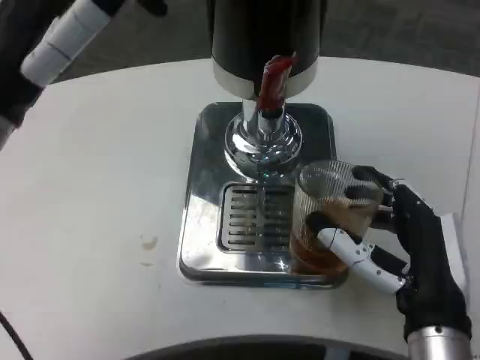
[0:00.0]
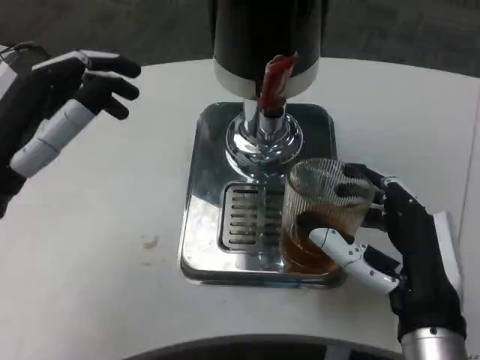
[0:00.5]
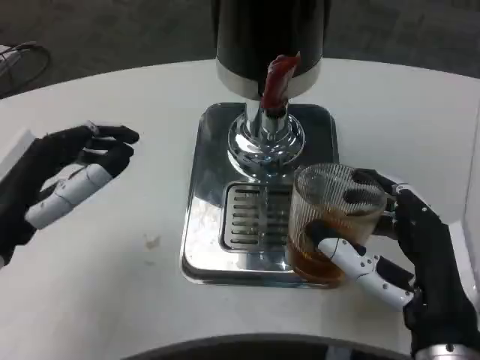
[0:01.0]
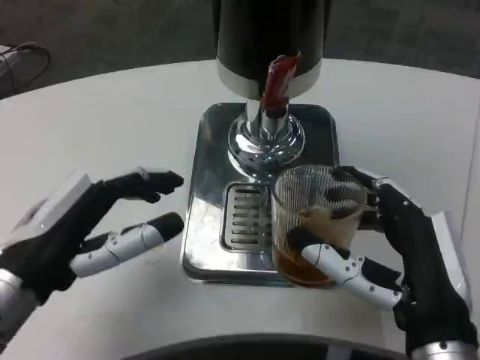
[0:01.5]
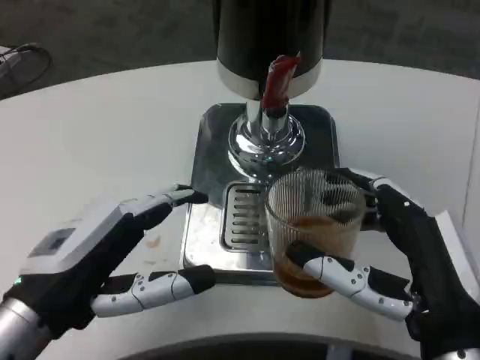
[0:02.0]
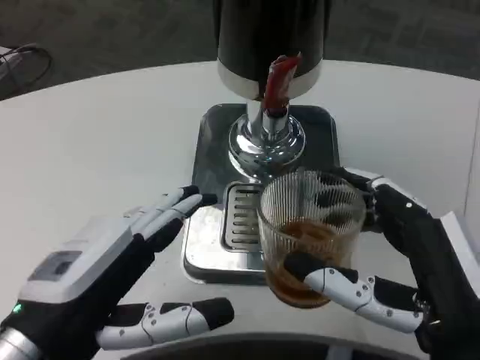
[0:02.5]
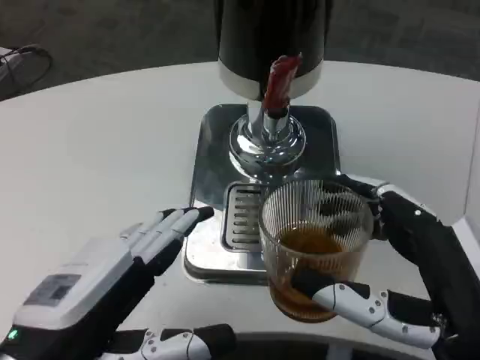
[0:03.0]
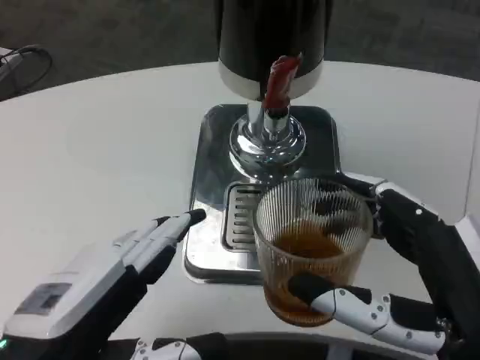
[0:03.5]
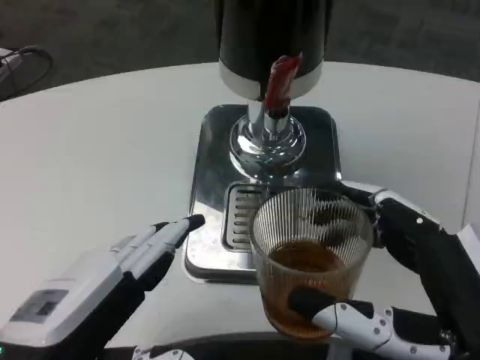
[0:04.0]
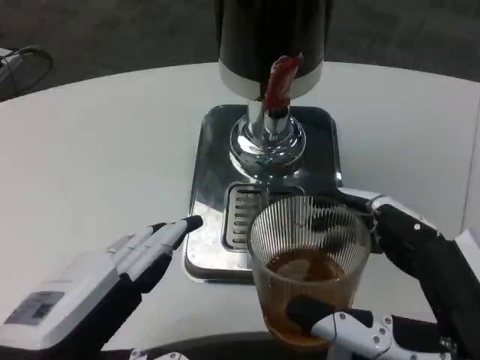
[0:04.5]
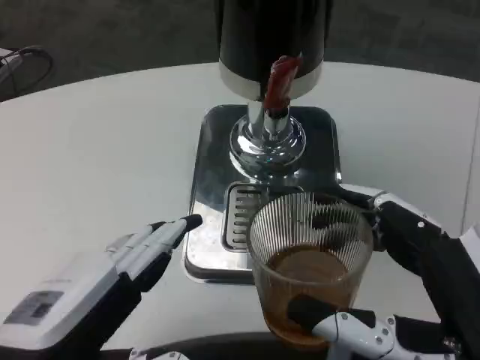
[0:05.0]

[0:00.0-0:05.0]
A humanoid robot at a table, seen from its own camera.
Task of the whole recording: Grasp the cup under the faucet to collect the drink, then remove the cup.
0:00.0 to 0:02.5: The right hand travels backward by roughly 5 cm, while the left hand travels downward and backward by some 15 cm.

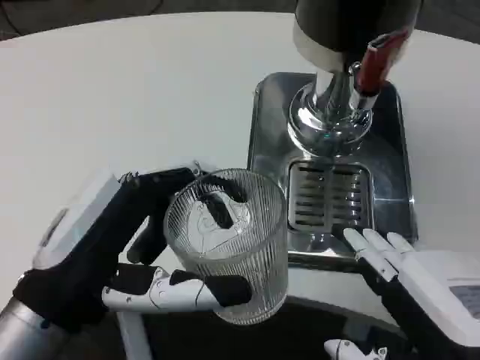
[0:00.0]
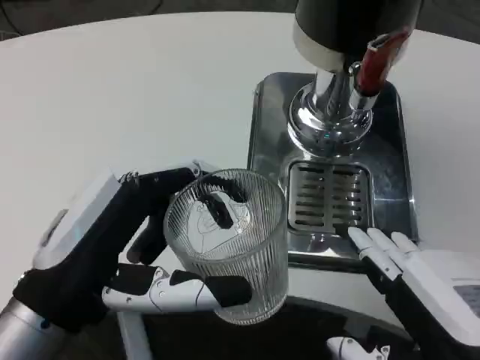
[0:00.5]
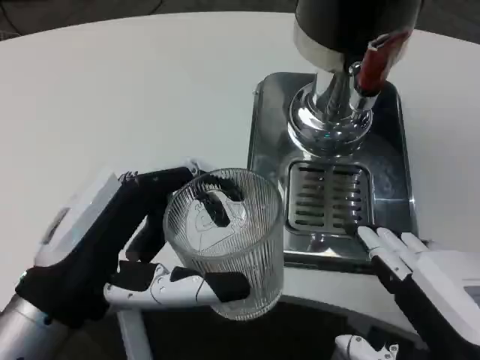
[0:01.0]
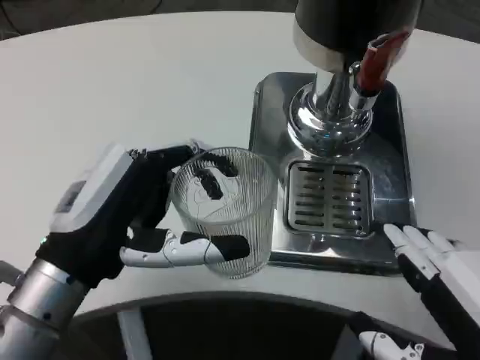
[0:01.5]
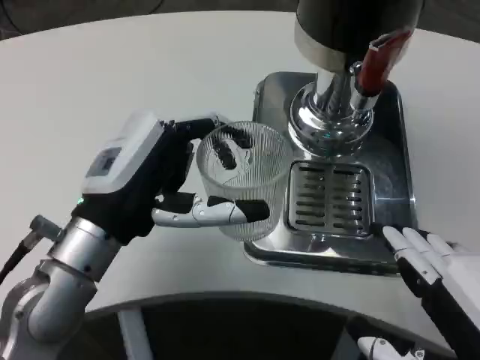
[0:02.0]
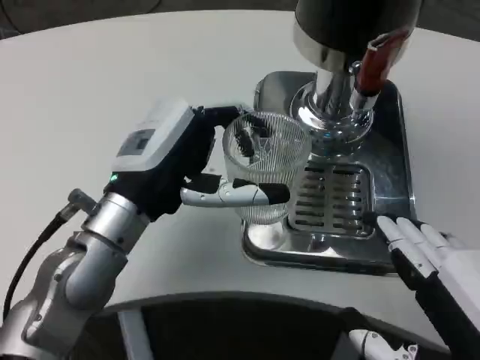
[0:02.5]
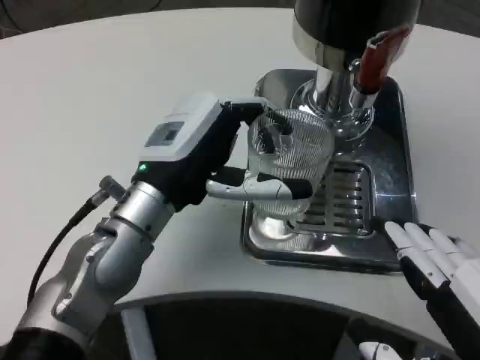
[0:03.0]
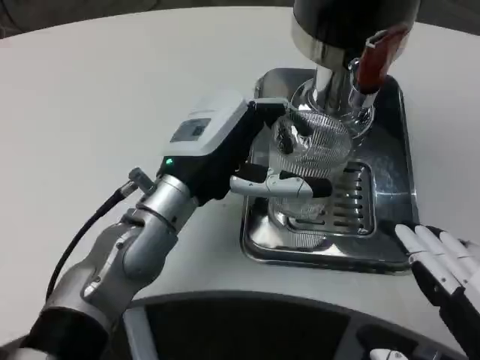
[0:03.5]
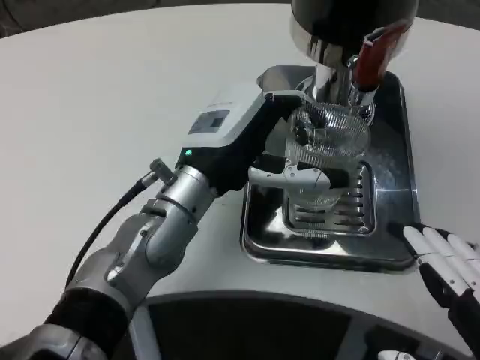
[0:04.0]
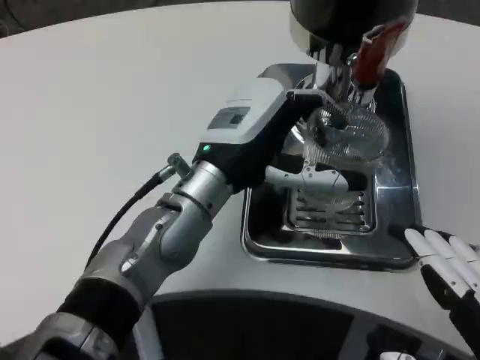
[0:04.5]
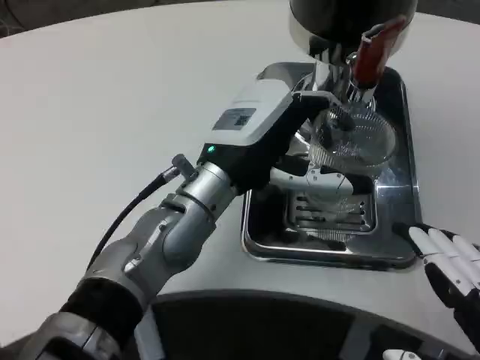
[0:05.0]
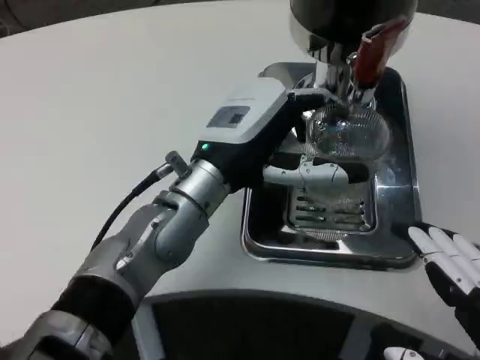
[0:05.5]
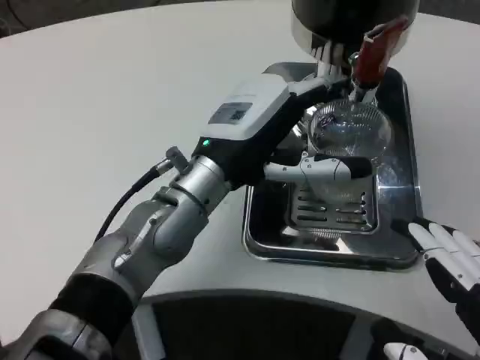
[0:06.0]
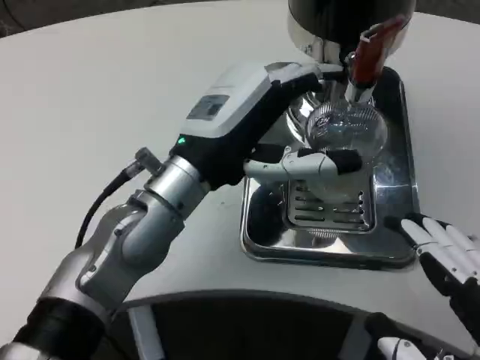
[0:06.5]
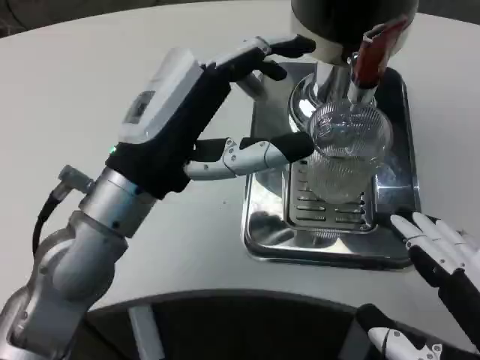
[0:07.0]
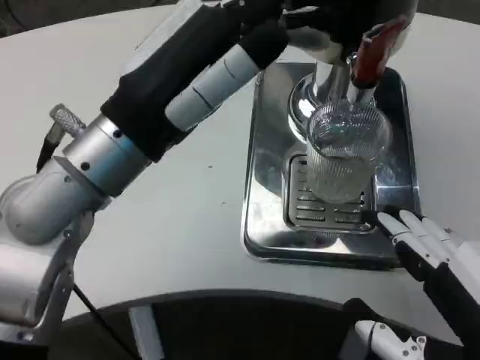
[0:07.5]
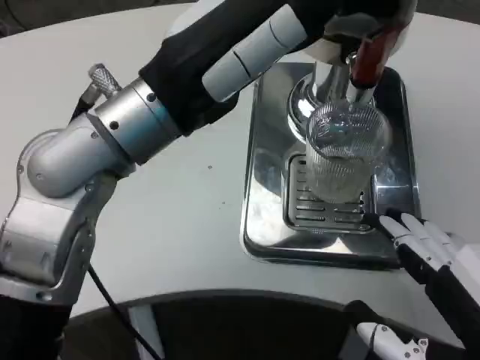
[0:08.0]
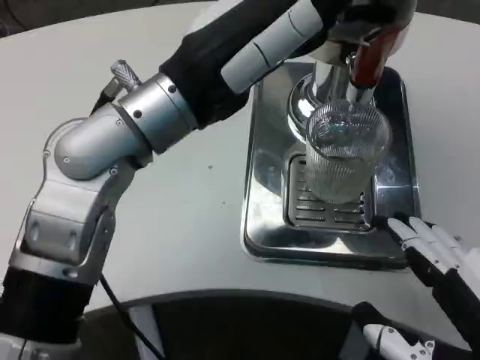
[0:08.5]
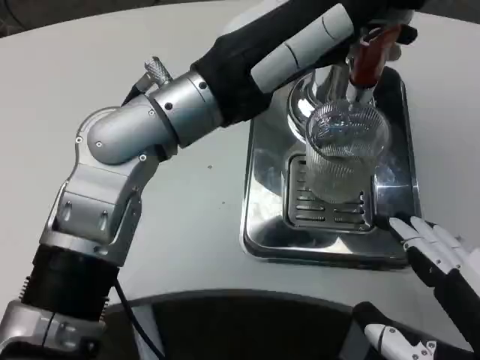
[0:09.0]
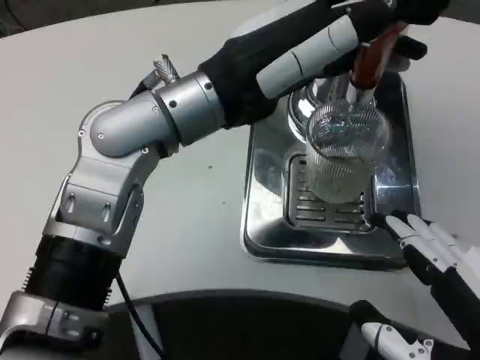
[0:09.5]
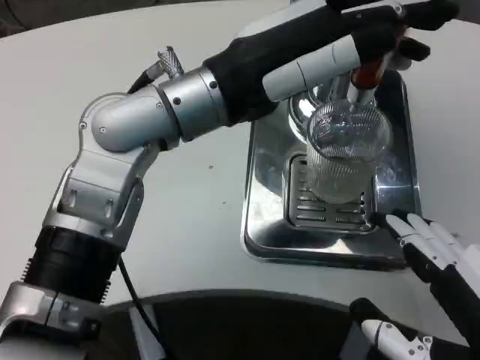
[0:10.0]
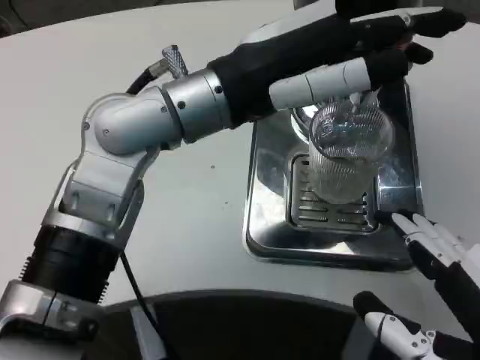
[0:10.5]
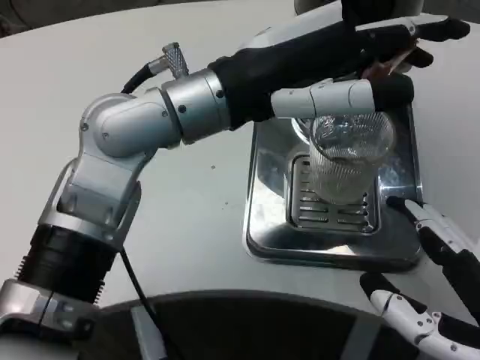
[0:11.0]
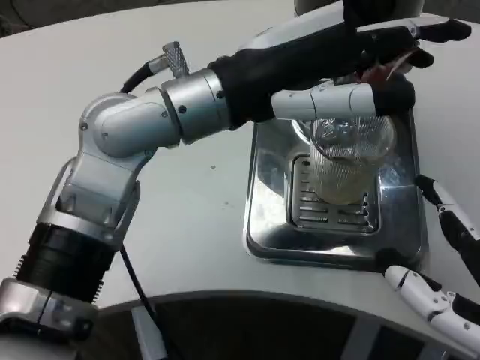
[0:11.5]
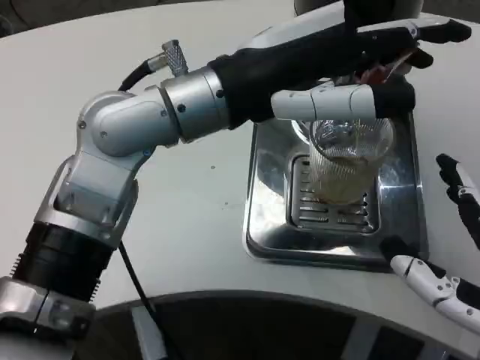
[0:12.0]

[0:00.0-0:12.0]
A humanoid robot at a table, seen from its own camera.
Task of the whole recording: Grasp the cup under the faucet to collect the drink, then remove the cup.
0:00.0 to 0:02.0: The left hand travels forward by about 10 cm.
0:02.0 to 0:04.0: The left hand is displaced to the right and forward by approximately 10 cm.
0:06.0 to 0:08.0: The left hand moves upward and backward, approximately 10 cm.
0:08.0 to 0:10.0: The left hand changes place by approximately 5 cm.

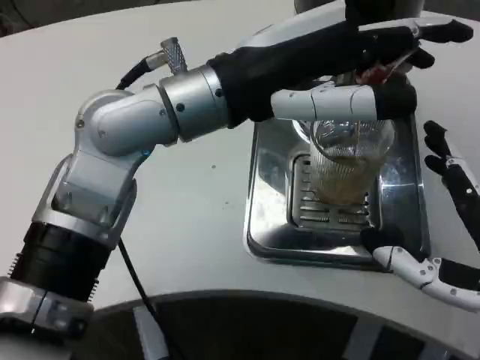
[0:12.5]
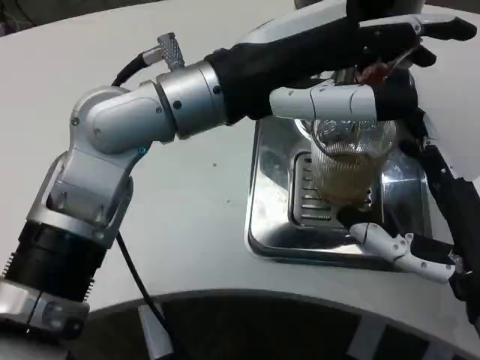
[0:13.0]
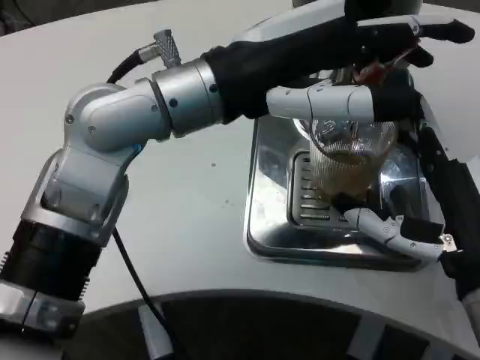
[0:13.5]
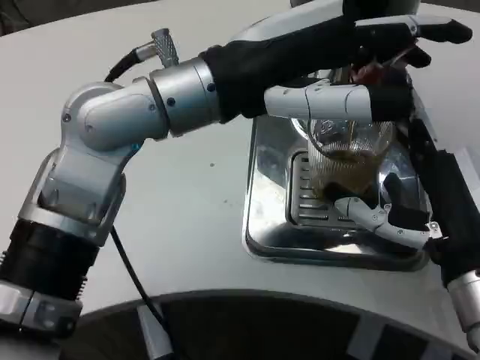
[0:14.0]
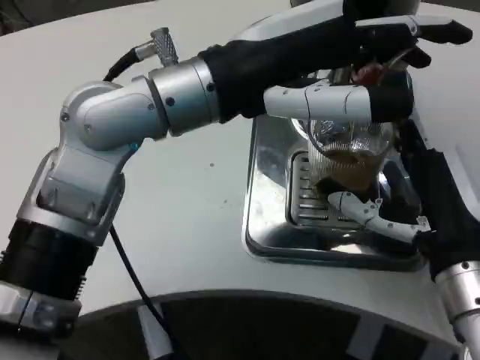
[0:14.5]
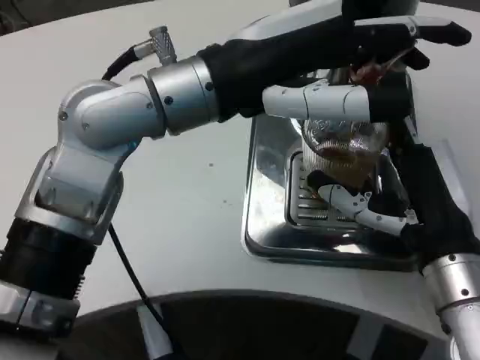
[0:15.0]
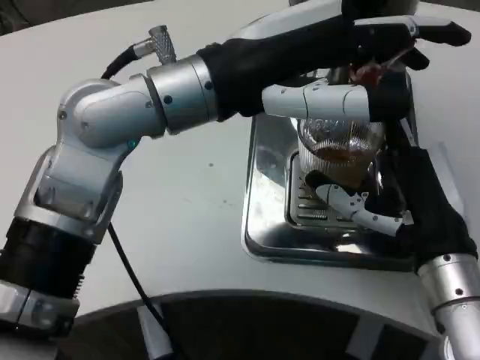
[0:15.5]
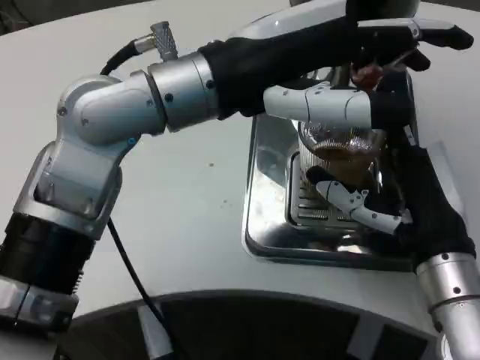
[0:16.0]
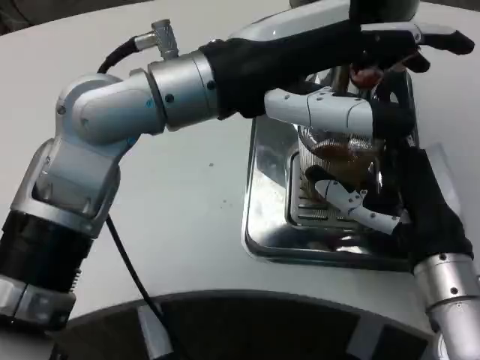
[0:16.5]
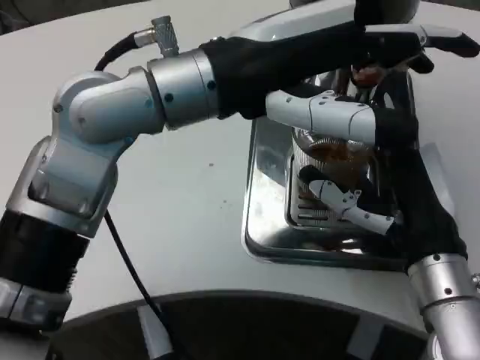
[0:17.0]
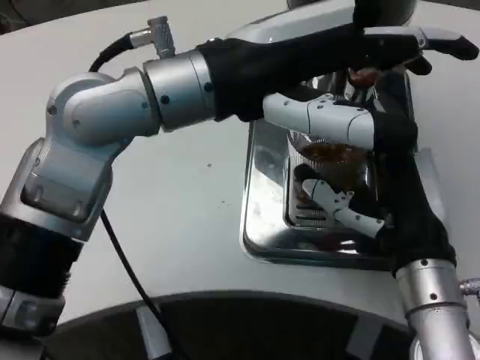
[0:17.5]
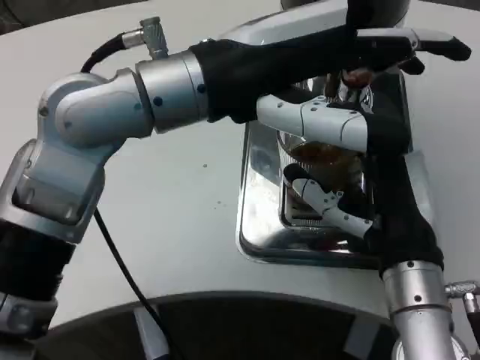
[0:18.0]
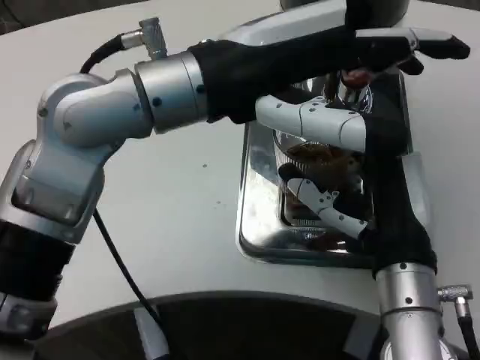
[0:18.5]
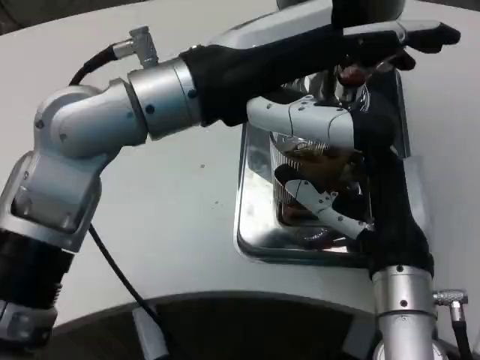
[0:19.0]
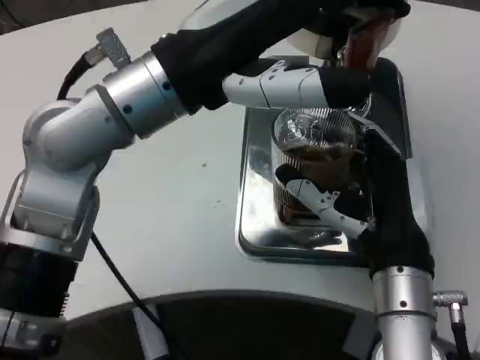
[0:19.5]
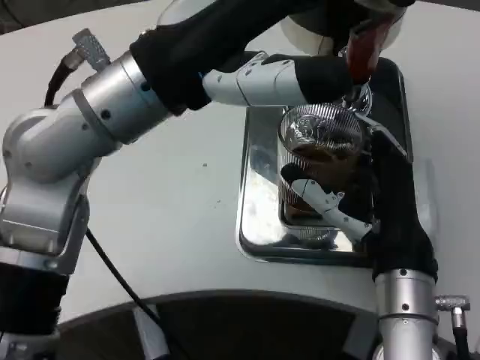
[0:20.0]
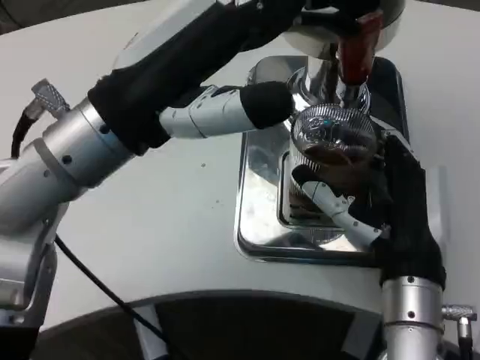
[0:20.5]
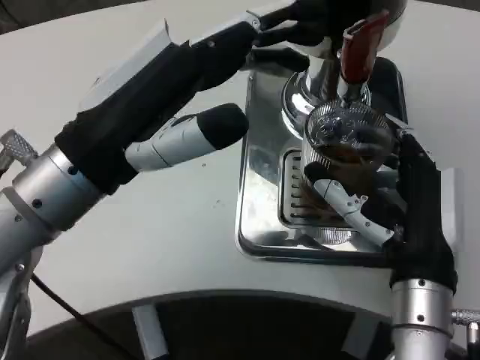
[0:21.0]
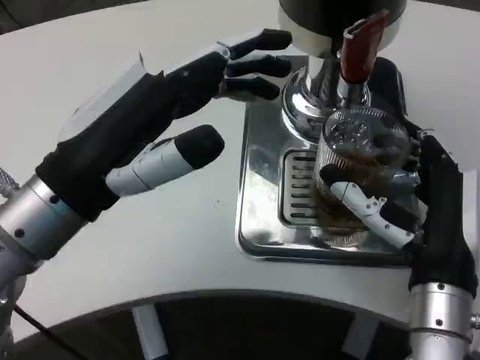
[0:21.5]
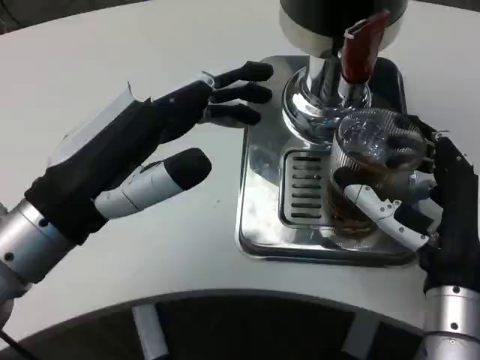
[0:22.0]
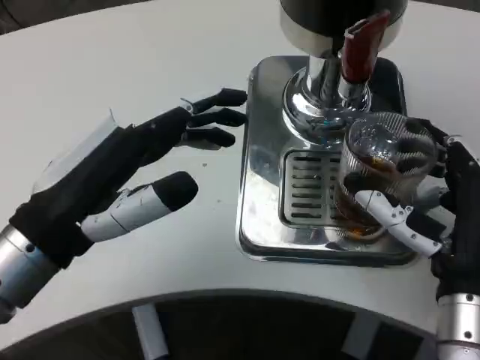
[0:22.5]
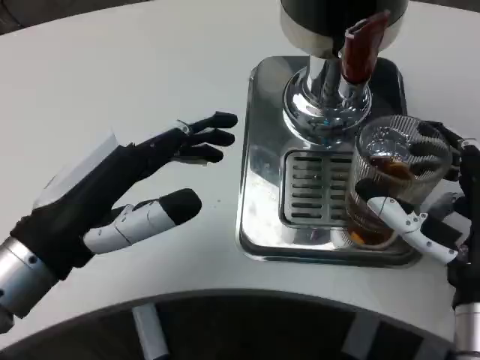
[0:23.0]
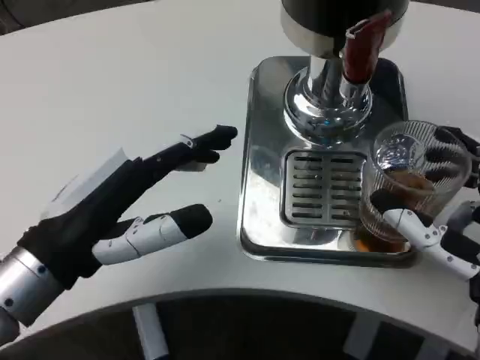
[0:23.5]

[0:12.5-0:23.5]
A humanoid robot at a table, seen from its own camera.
Task of the whole recording: Grasp the cup under the faucet to collect the drink, then remove the cup.
0:12.5 to 0:14.5: The right hand goes some 10 cm forward.
0:14.5 to 0:16.0: The hands stay close to where they were, moving slightly.
0:20.0 to 0:21.5: The left hand moves downward and to the left, roughly 10 cm.
0:21.5 to 0:23.5: The right hand ends up approximately 5 cm from where it was. Meanwhile the left hand shifts by roughly 5 cm.
